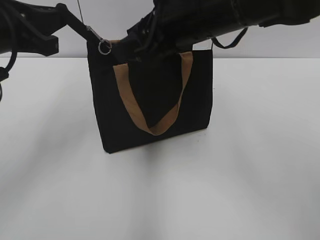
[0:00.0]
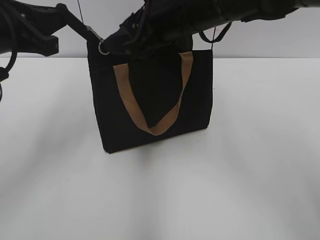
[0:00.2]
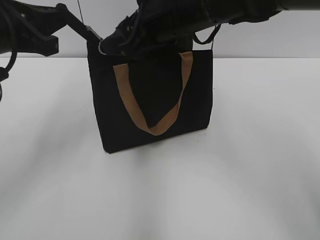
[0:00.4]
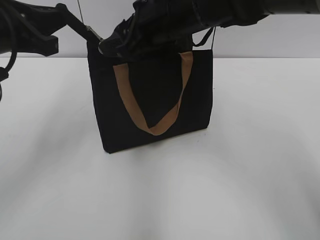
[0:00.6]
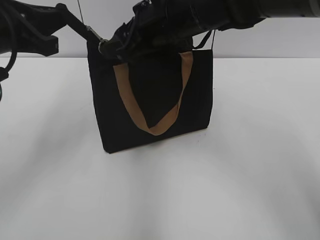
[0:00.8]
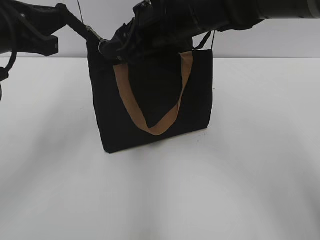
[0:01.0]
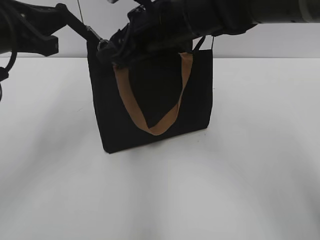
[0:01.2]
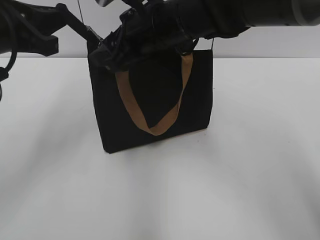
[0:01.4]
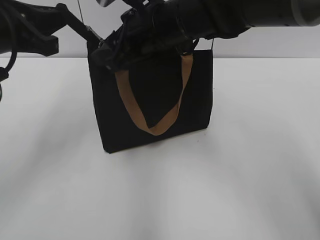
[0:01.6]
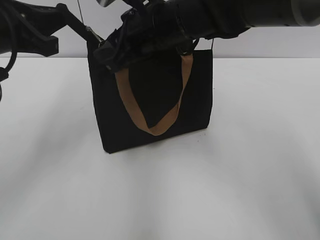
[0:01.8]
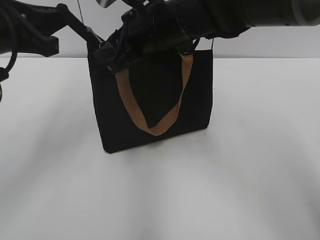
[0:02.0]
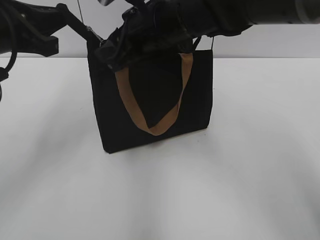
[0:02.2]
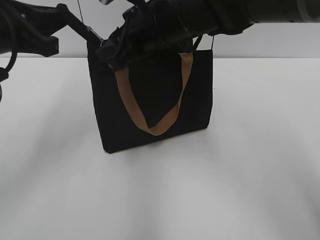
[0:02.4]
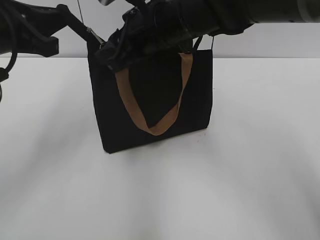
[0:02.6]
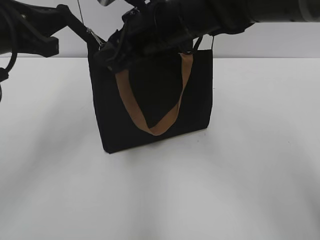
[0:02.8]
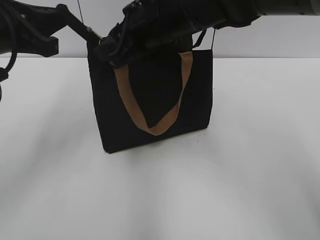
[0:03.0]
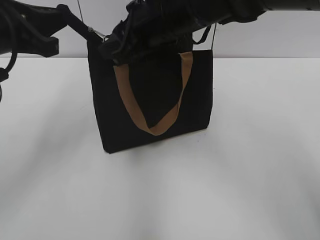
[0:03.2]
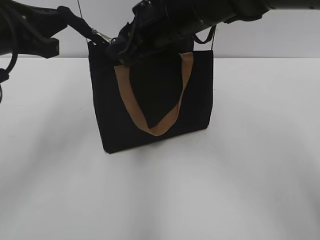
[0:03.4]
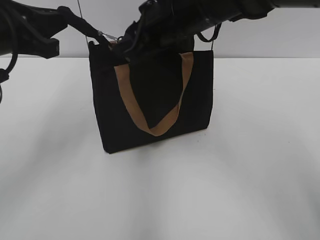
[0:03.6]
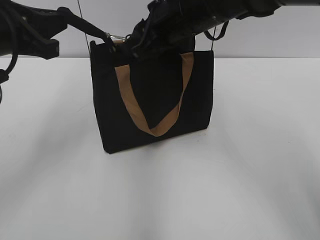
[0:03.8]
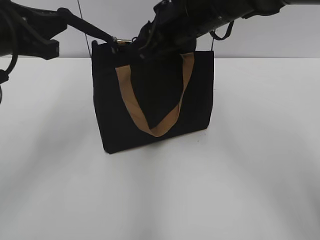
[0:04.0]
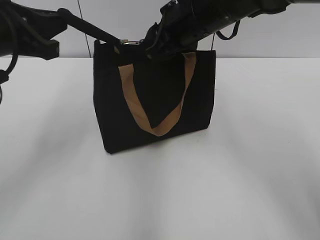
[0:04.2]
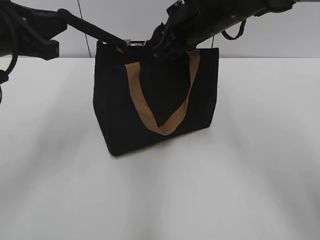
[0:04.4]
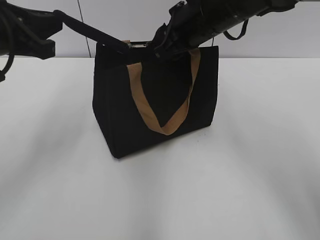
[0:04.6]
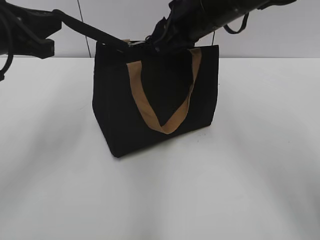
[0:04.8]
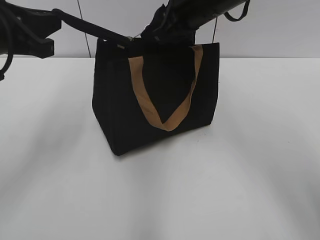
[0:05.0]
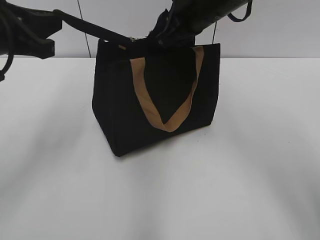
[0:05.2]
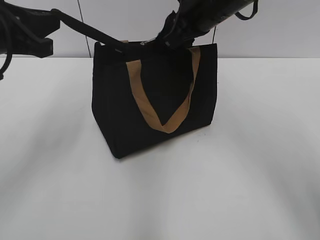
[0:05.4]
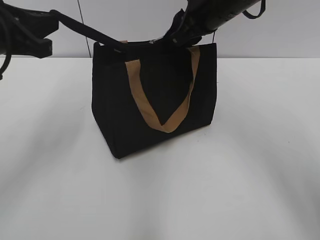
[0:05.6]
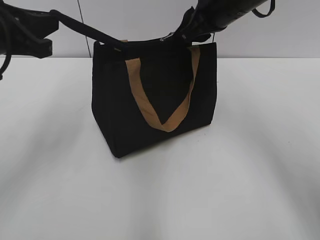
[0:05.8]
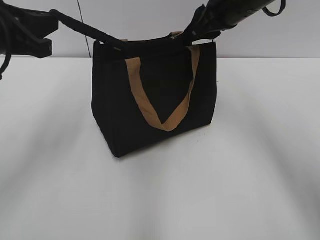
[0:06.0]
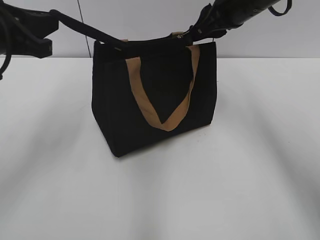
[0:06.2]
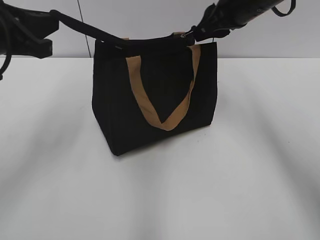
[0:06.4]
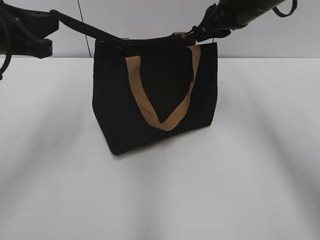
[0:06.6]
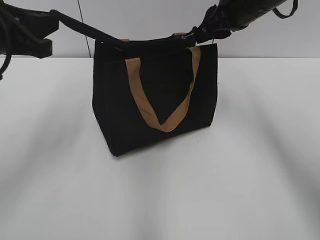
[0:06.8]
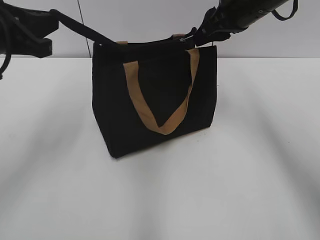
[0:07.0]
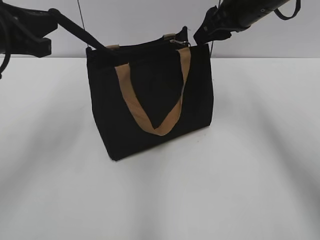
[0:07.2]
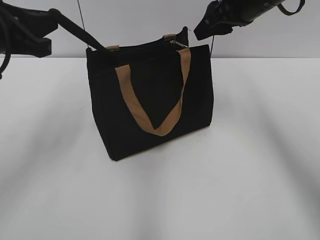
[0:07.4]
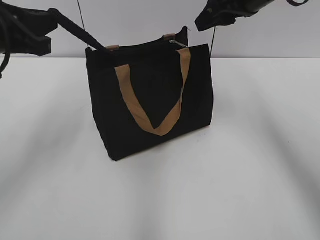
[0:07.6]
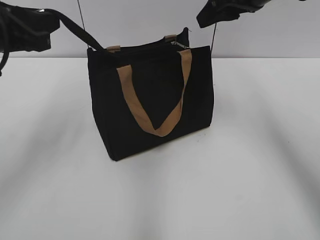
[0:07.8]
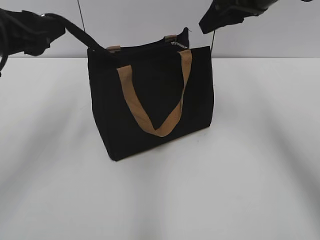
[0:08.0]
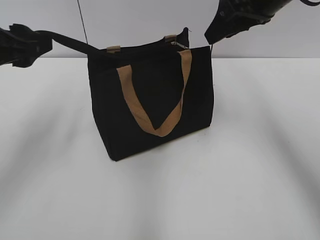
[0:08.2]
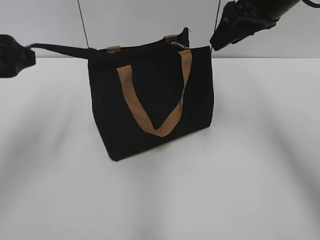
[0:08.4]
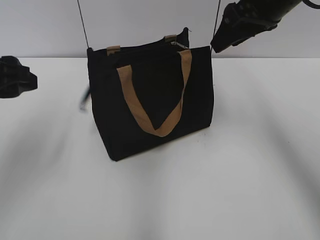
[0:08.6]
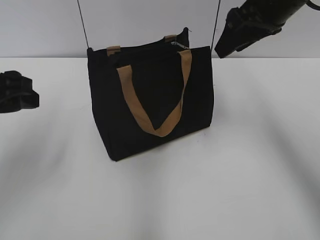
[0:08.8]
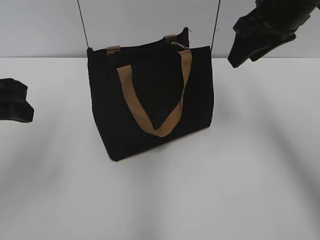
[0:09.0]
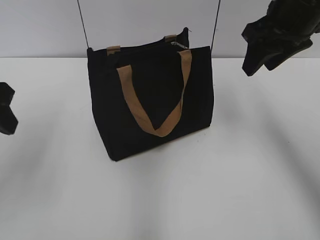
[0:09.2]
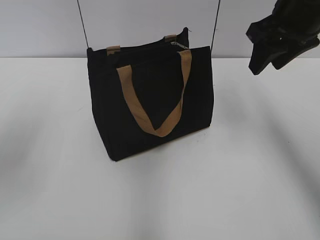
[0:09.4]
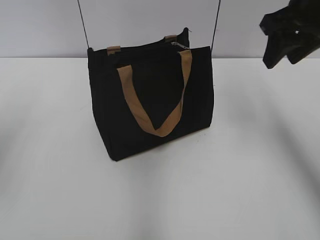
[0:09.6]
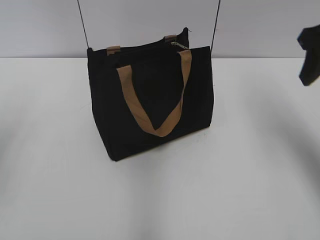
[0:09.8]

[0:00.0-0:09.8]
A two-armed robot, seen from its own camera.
Step, 0:00.0 to 0:07.2: Zip up the bag with your right hand.
Step, 0:07.4 to 0:08.6: Grab the zipper with your left hand.
0:00.0 to 0:01.4: The right gripper shifts by approximately 10 cm.
0:01.4 to 0:02.8: The right gripper closes up.
0:02.8 to 0:04.2: The right gripper moves to the right, some 5 cm.
0:04.2 to 0:05.6: The grippers move only a little.
0:05.6 to 0:07.0: The right gripper heads to the right, covering roughly 5 cm.
0:07.0 to 0:08.4: The left gripper opens up, while the right gripper changes place by about 5 cm, and opens up.
0:08.4 to 0:09.8: The right gripper travels to the right by approximately 5 cm, while the left gripper heads to the left, covering roughly 5 cm.

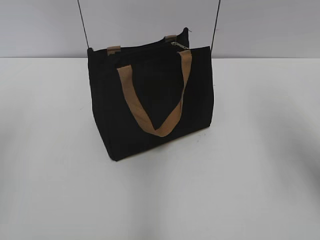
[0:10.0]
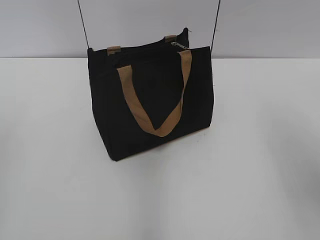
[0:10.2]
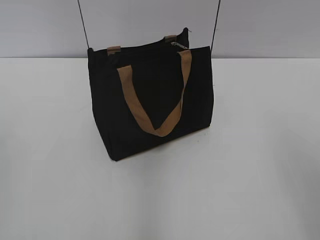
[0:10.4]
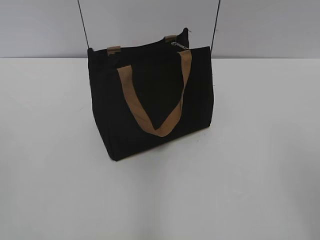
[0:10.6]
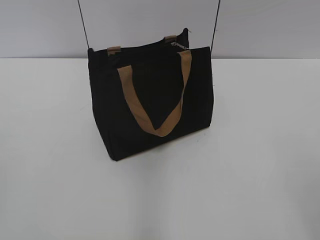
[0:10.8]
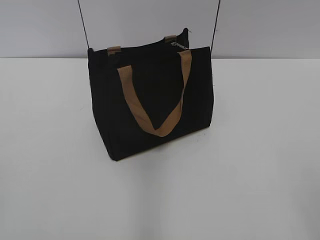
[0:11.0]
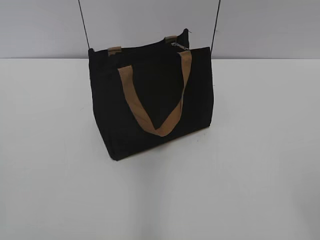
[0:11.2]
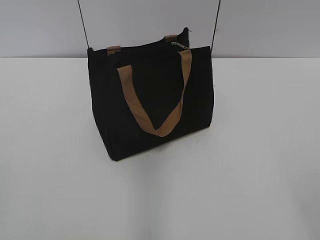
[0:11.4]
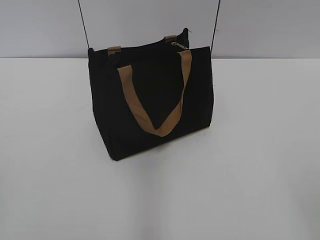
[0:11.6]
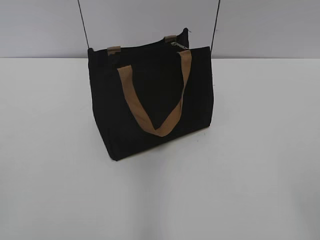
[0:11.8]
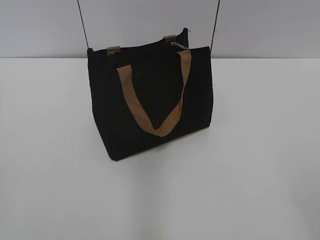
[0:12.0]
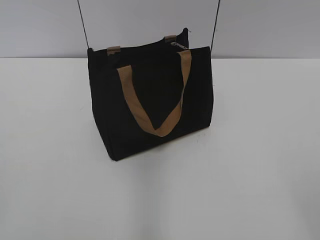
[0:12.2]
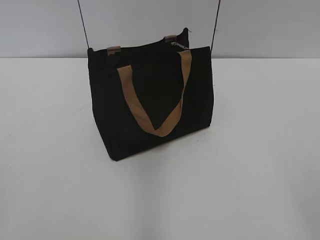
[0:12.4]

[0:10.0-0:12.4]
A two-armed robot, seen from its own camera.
0:10.0 to 0:11.2: The grippers both shift backward by roughly 25 cm.
